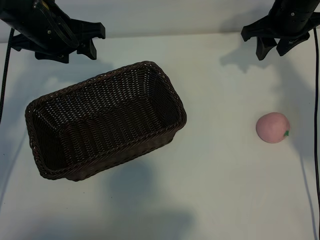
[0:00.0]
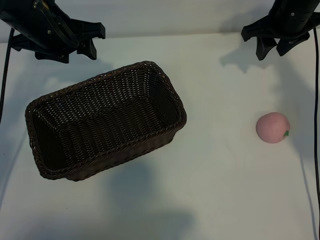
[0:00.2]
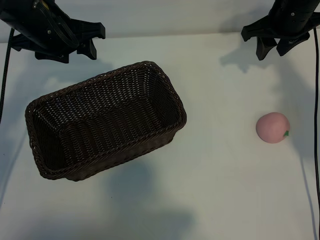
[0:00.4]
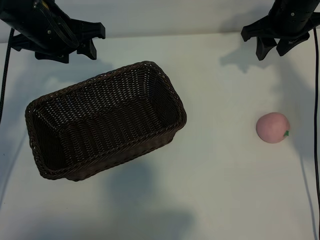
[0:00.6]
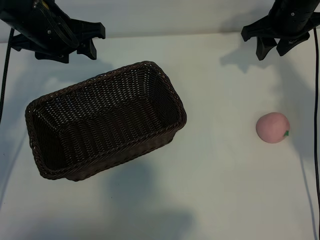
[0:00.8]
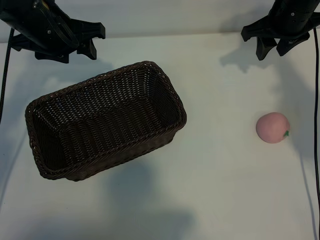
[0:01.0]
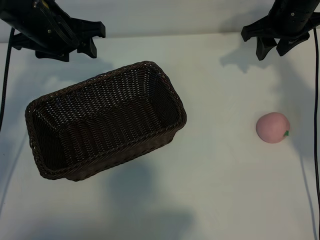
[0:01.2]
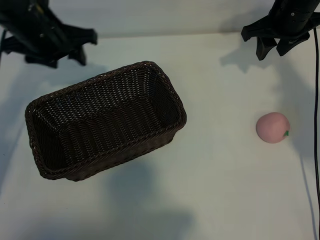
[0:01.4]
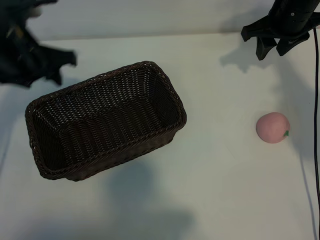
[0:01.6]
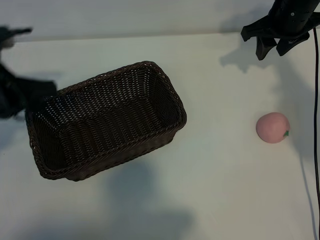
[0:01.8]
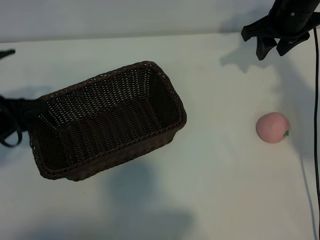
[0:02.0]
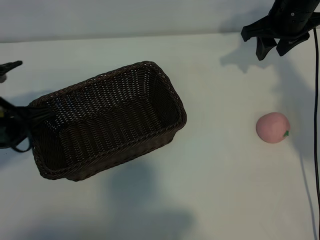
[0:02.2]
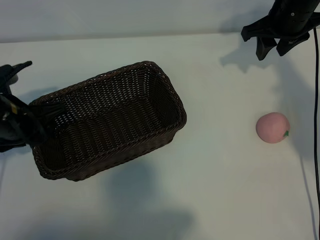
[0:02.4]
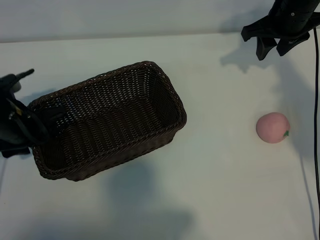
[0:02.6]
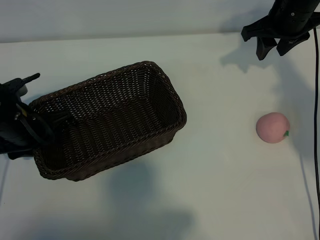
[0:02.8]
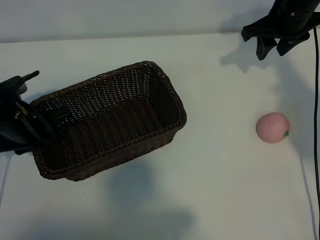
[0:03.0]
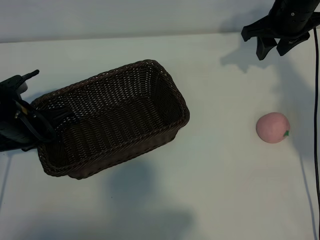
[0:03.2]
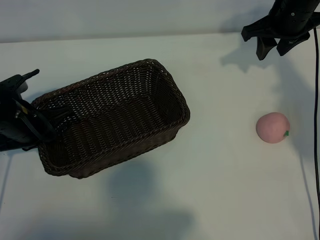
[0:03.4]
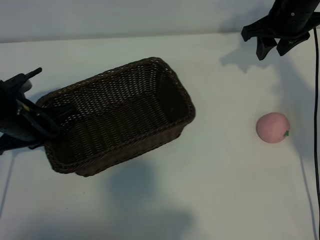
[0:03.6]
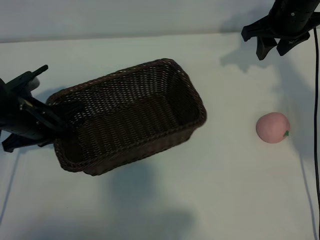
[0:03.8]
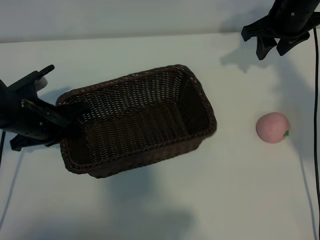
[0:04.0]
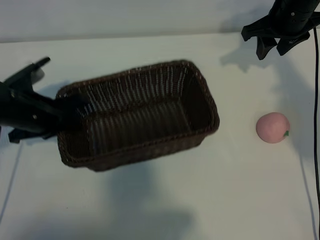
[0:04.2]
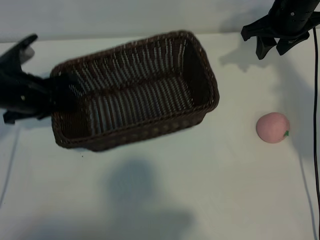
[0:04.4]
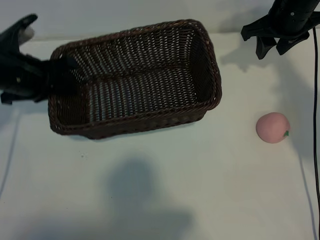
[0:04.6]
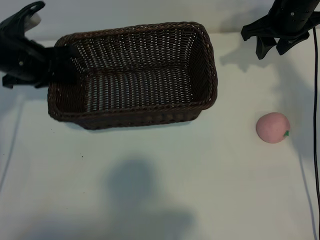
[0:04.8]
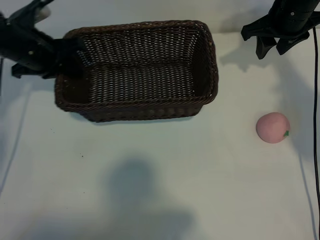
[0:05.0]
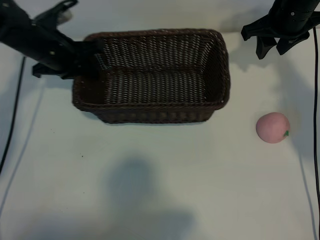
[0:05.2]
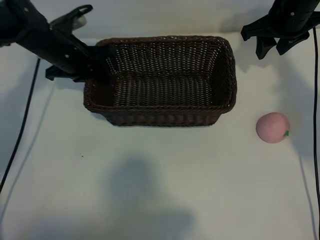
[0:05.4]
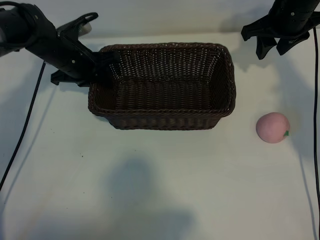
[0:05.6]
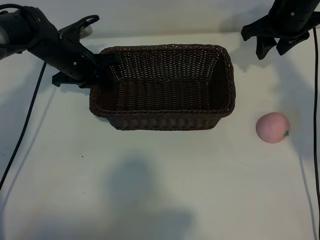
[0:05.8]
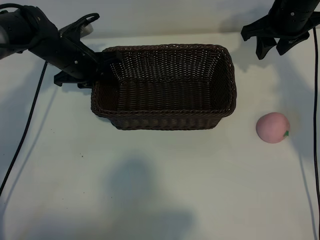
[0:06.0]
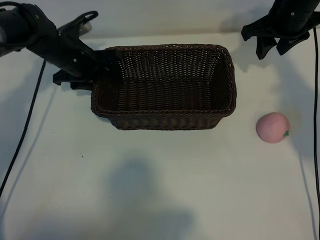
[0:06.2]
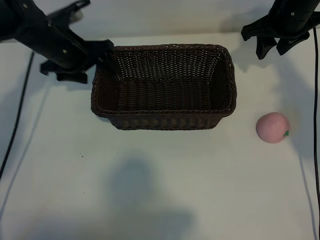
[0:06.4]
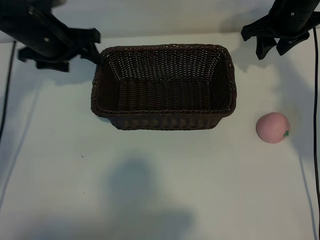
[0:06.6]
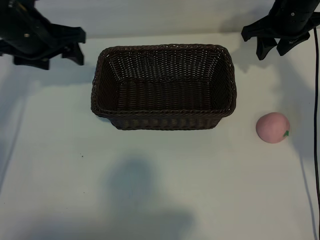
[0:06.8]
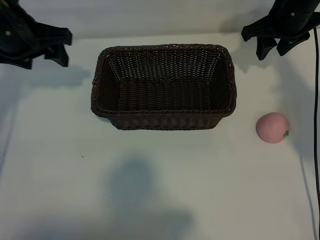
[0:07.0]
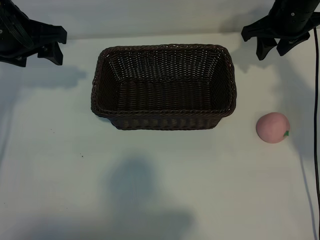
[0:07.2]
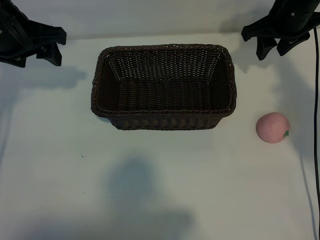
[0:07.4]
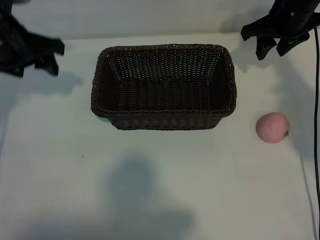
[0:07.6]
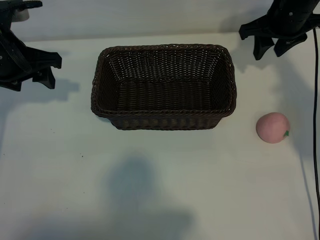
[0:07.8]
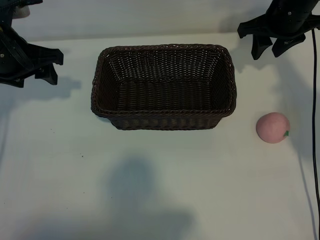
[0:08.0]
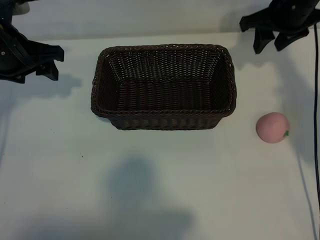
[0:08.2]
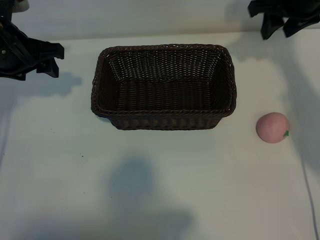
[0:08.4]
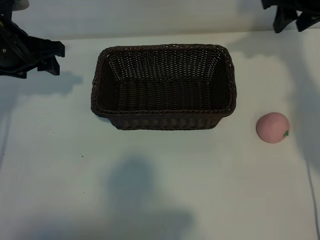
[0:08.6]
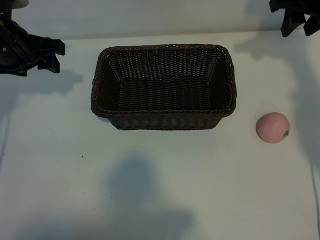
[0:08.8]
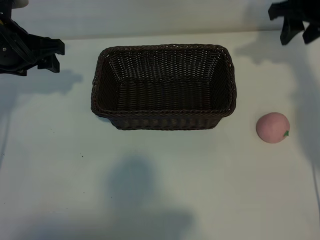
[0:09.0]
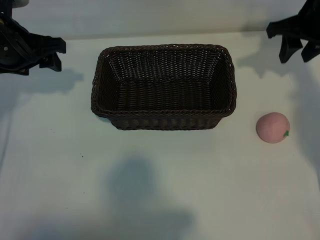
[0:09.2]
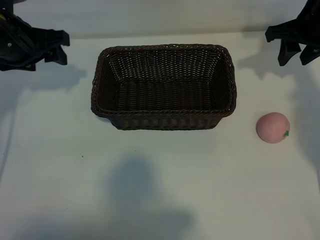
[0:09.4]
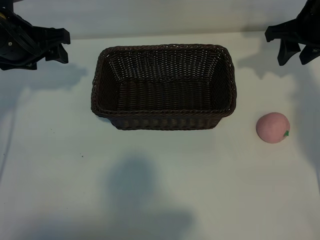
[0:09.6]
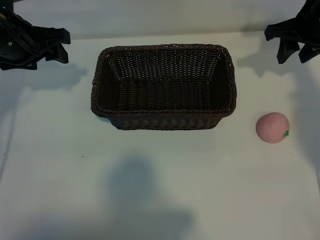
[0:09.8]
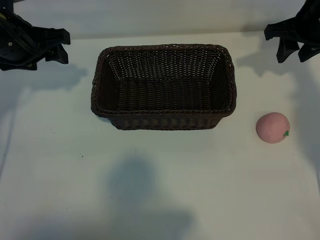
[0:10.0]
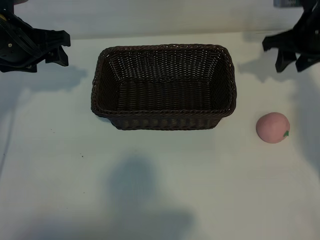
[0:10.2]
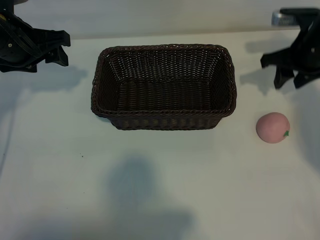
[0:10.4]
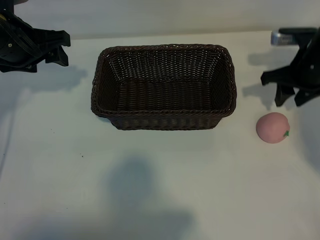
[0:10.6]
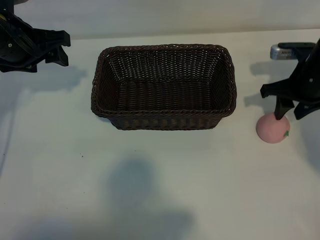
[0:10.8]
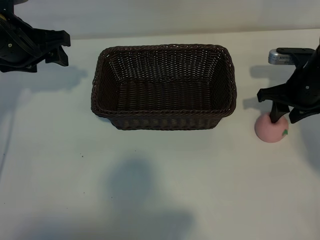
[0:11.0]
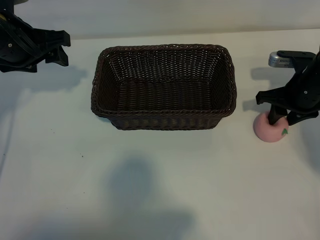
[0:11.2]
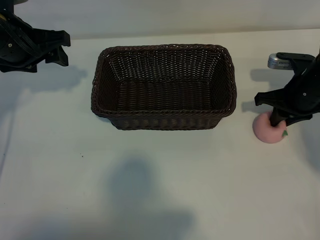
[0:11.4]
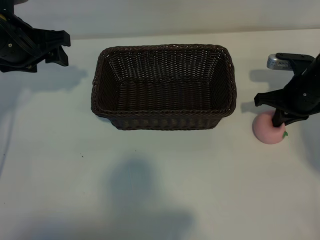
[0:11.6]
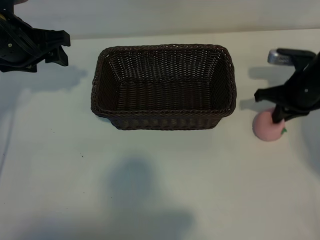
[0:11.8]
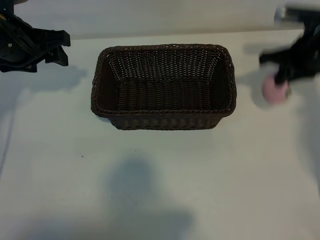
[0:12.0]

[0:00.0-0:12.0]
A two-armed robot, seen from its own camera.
Task of the whole recording: pick up the peach and put it into the basket.
Step, 0:01.2 to 0:03.2: Grasp the basket with left gripper.
Step, 0:03.4 to 0:06.2: Place the basket in the center of view with left gripper.
Step, 0:06.6 to 0:11.6: Grasp the peach with right gripper.

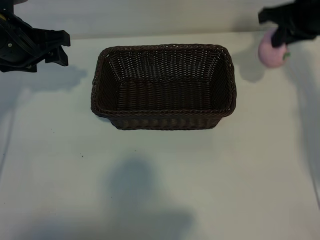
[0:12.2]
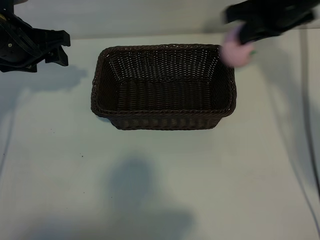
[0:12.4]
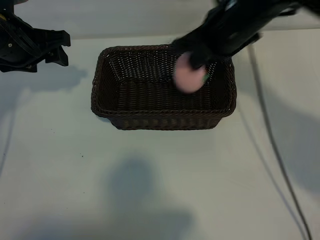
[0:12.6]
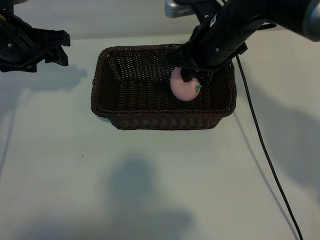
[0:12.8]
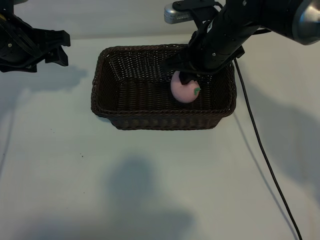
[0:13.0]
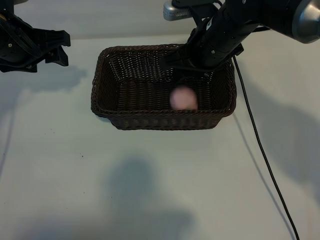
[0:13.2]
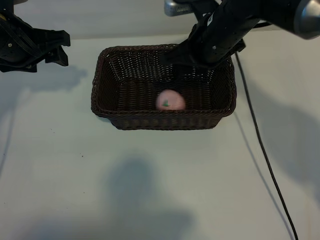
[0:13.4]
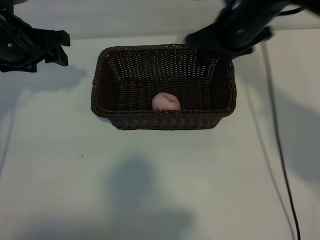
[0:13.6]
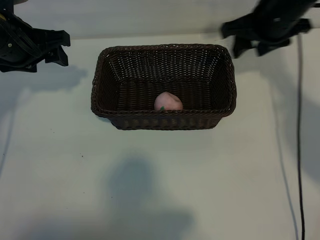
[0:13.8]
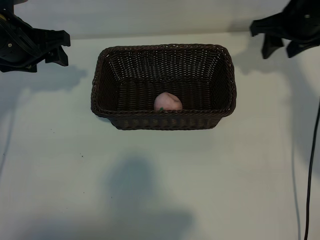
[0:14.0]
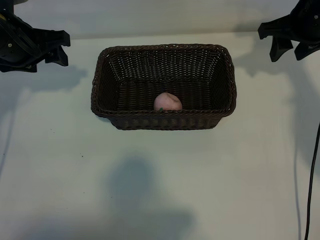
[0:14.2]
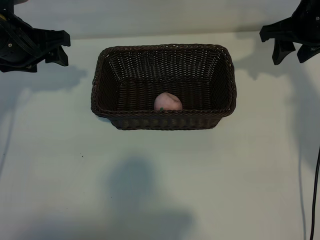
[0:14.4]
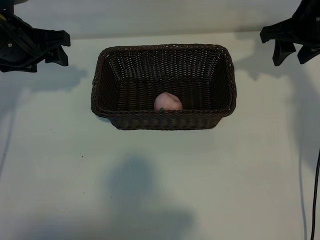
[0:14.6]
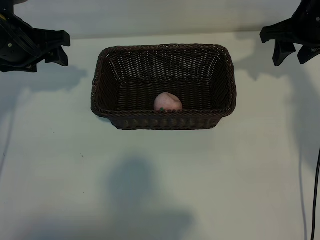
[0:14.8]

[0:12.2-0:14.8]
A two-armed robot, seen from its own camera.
Task of the whole recording: pick up the peach and put it into the basket.
Step, 0:12.2 to 0:13.4: Place the peach in the basket with right gripper.

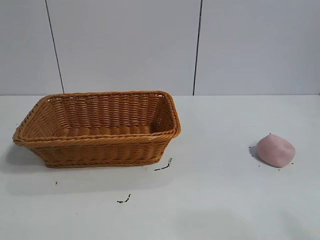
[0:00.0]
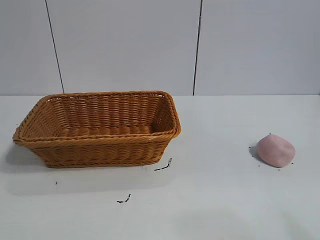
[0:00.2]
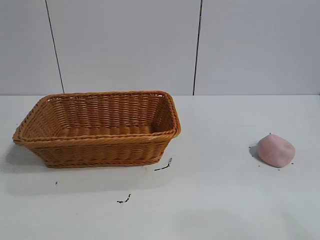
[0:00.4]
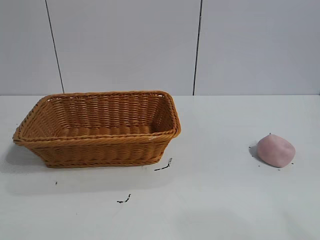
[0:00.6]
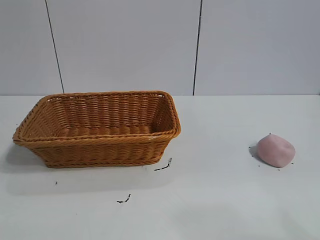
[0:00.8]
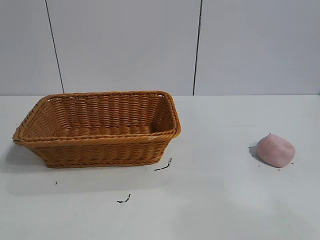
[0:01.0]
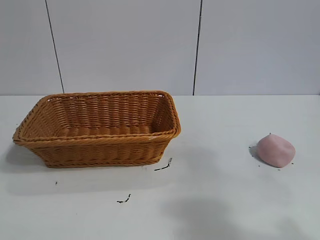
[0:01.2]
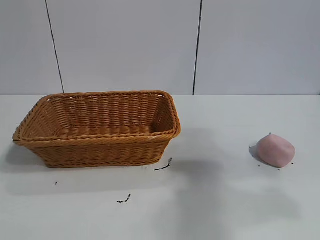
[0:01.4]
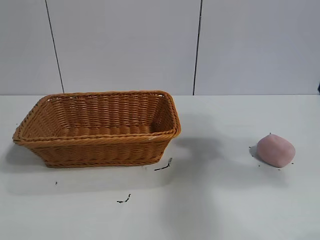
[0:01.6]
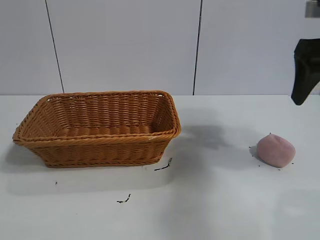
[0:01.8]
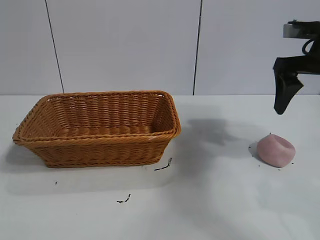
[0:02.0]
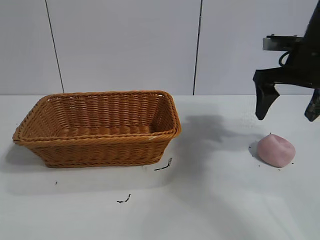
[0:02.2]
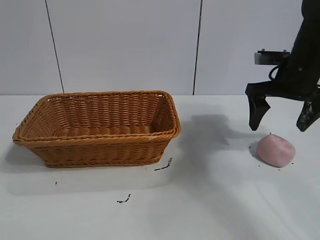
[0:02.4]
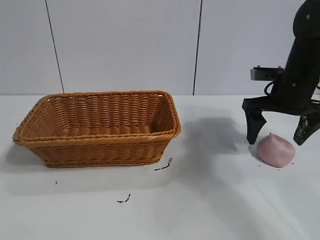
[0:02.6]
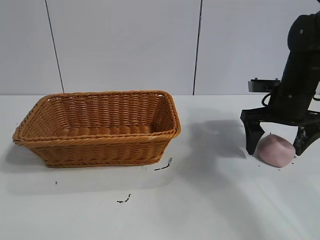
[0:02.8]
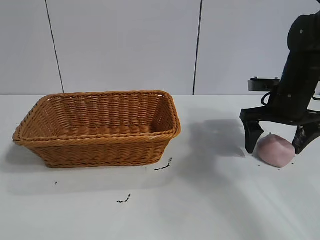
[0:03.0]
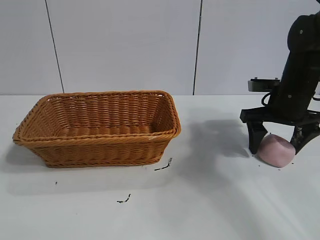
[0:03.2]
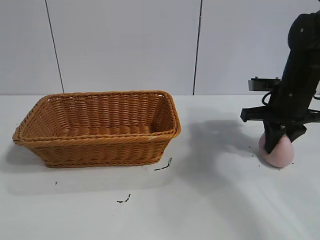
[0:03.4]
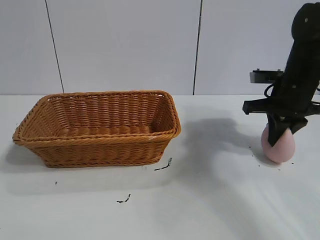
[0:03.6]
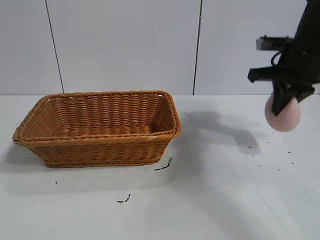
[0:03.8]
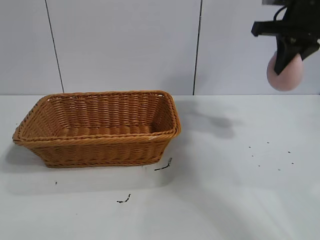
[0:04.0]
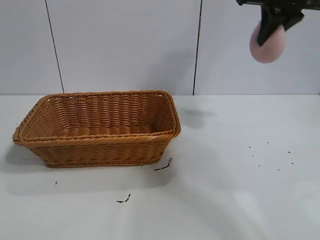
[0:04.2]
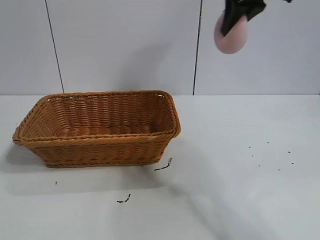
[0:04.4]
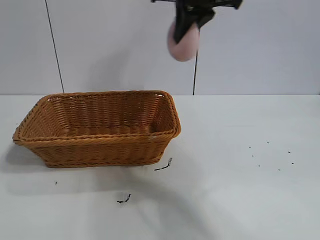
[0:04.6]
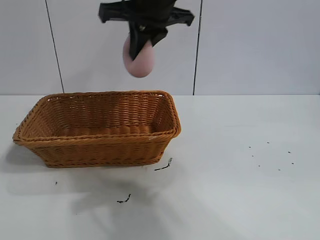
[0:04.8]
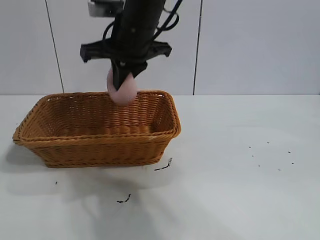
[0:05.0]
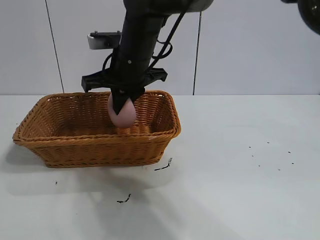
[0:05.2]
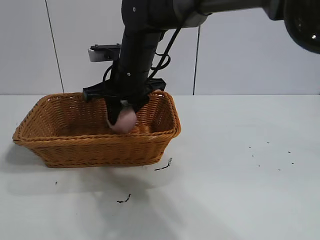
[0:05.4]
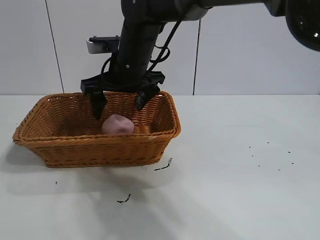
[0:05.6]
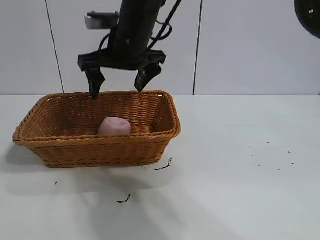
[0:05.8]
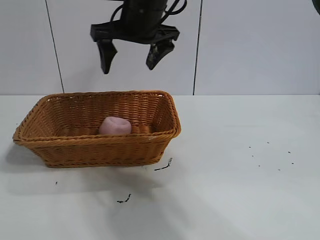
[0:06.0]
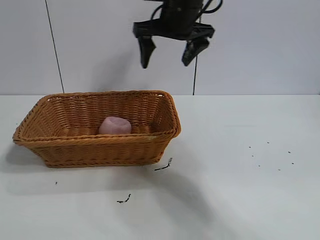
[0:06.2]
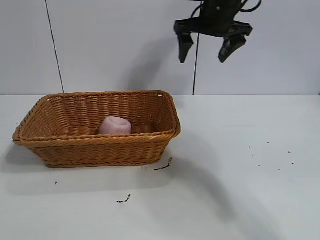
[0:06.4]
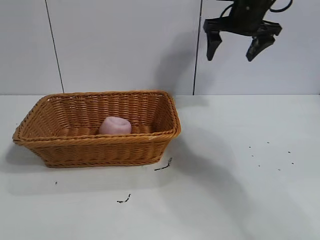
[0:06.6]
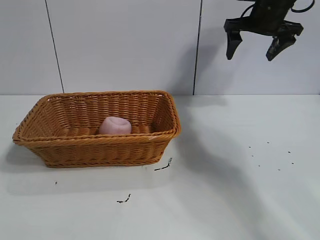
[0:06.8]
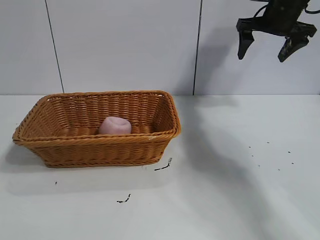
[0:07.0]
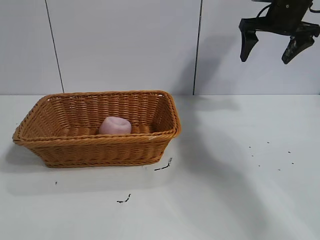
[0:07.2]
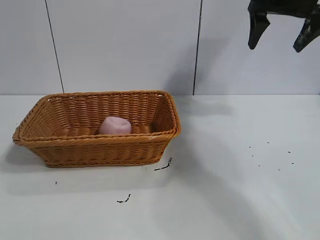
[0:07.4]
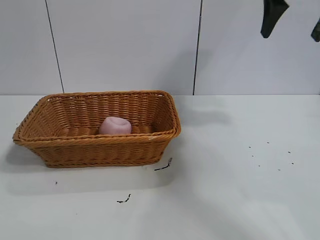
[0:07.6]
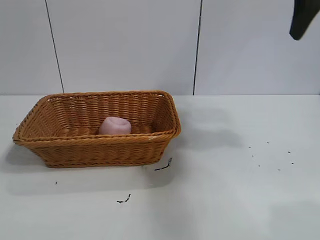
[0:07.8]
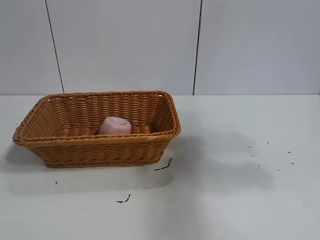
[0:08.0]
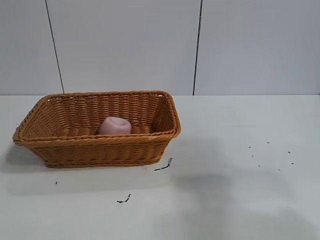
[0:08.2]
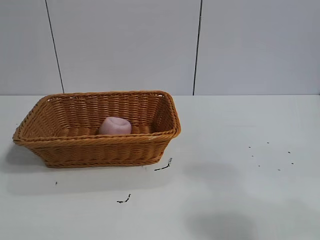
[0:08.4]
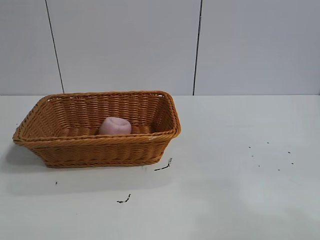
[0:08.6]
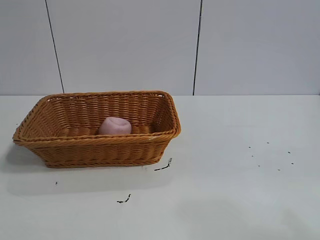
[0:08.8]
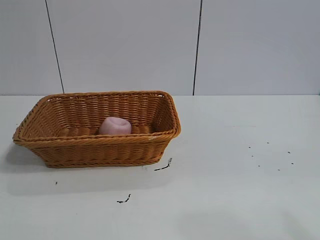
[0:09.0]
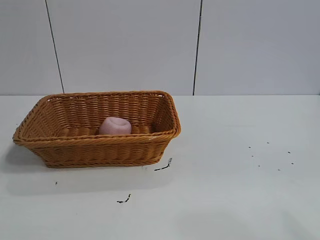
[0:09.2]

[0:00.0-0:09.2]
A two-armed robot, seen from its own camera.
Task of the whole recording: pick up the peach and put it into the basket.
Step, 0:00.8 to 0:03.4: Grasp the peach with right gripper.
Step, 0:03.6 to 0:05.6: Place the peach in the basket with right gripper.
